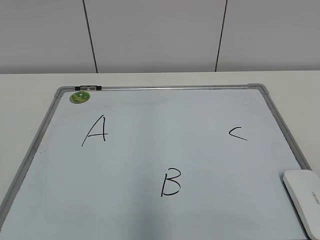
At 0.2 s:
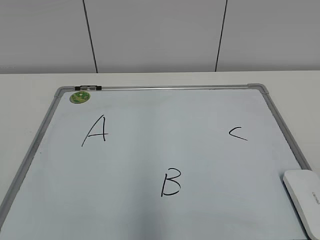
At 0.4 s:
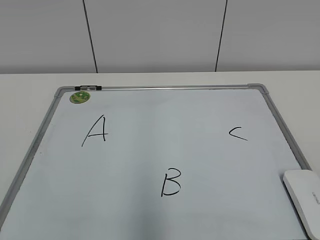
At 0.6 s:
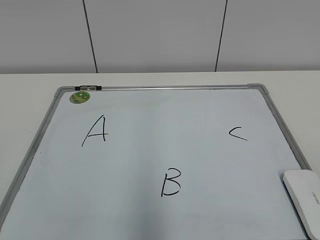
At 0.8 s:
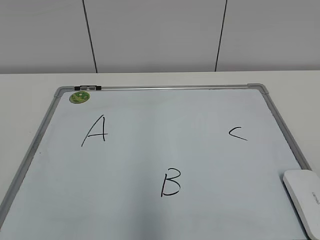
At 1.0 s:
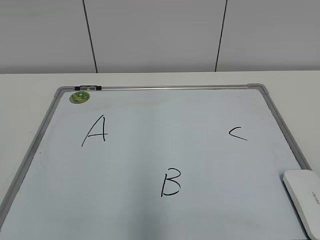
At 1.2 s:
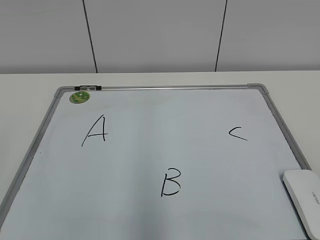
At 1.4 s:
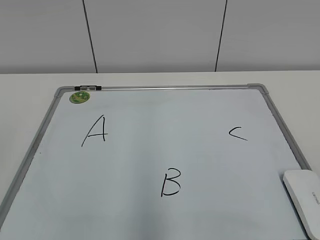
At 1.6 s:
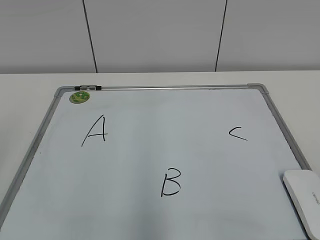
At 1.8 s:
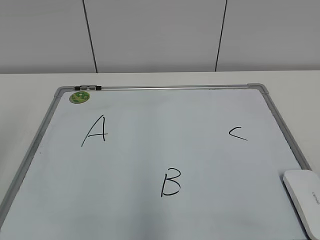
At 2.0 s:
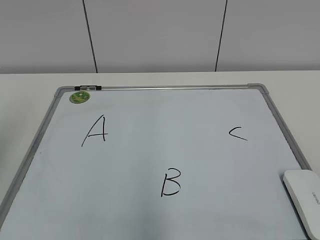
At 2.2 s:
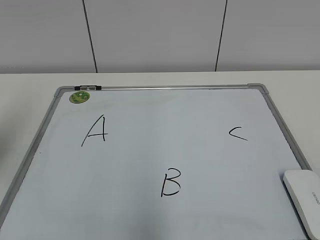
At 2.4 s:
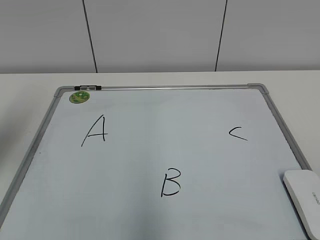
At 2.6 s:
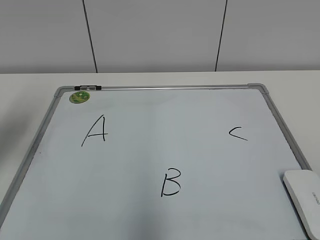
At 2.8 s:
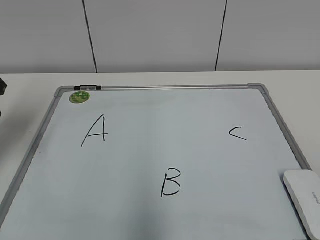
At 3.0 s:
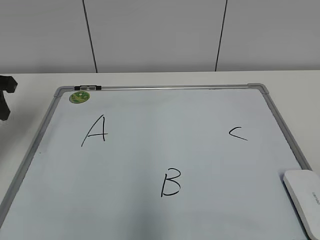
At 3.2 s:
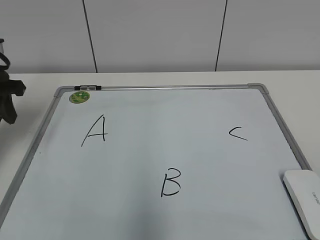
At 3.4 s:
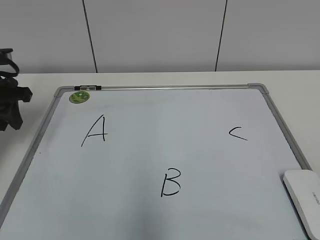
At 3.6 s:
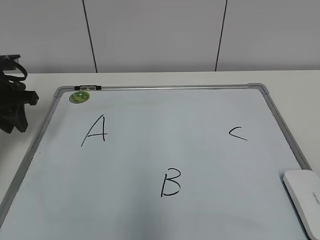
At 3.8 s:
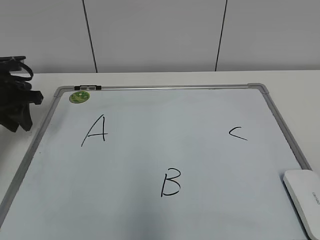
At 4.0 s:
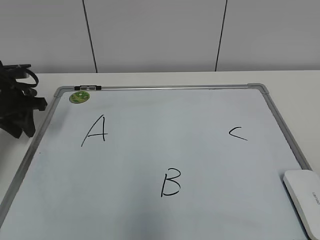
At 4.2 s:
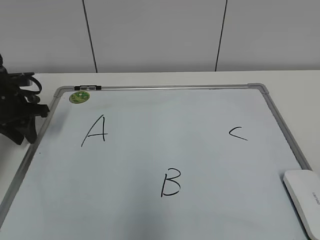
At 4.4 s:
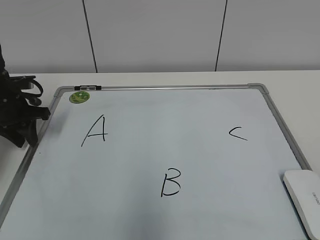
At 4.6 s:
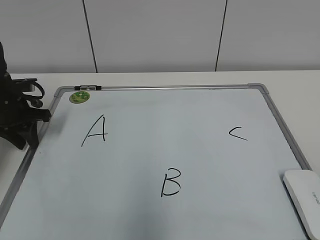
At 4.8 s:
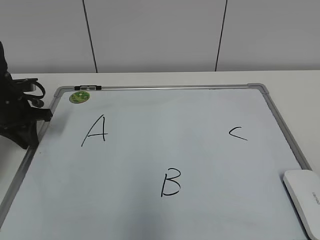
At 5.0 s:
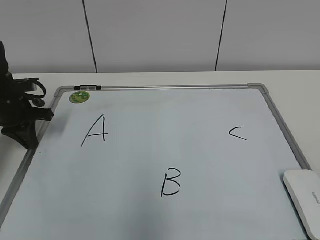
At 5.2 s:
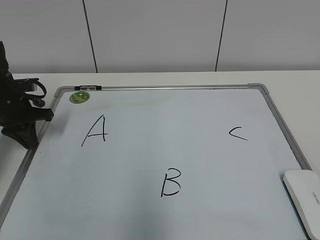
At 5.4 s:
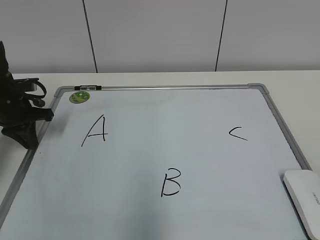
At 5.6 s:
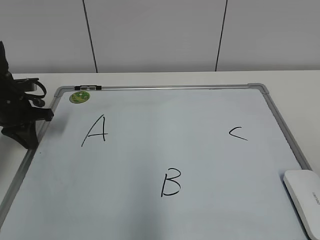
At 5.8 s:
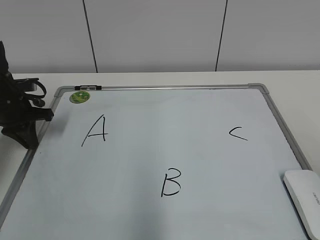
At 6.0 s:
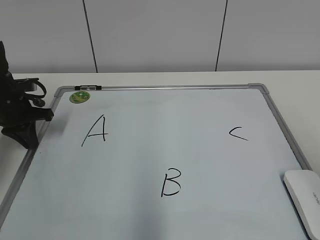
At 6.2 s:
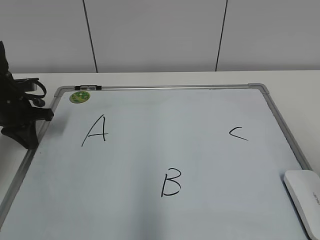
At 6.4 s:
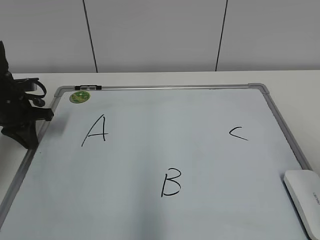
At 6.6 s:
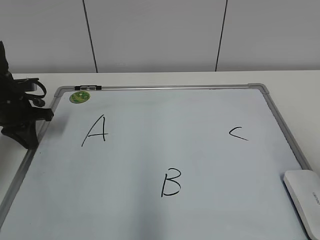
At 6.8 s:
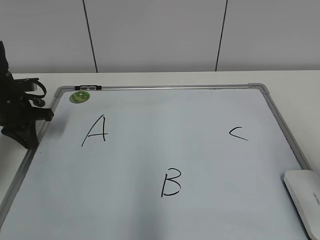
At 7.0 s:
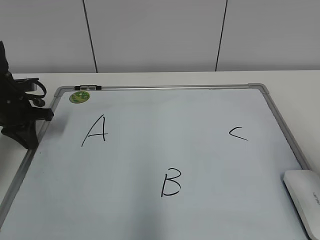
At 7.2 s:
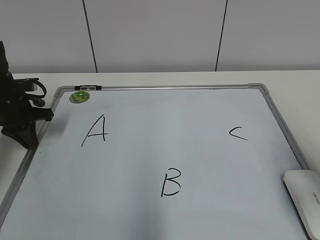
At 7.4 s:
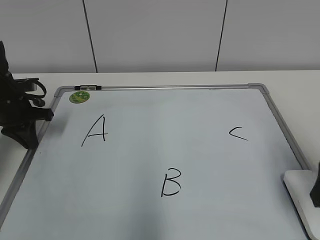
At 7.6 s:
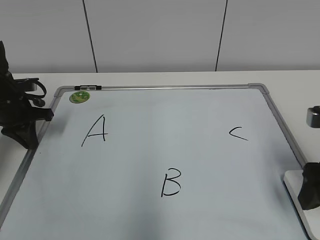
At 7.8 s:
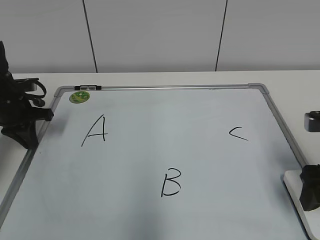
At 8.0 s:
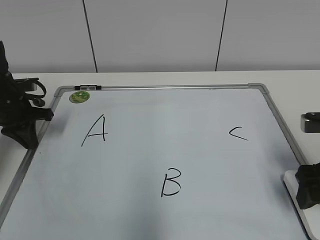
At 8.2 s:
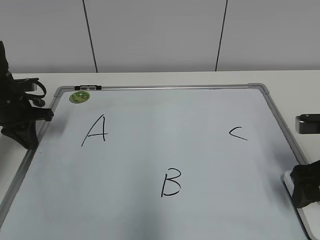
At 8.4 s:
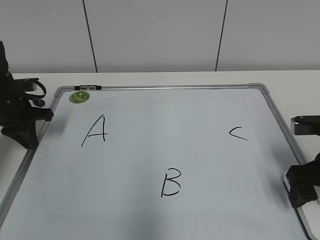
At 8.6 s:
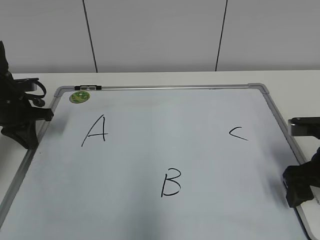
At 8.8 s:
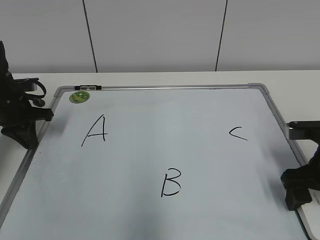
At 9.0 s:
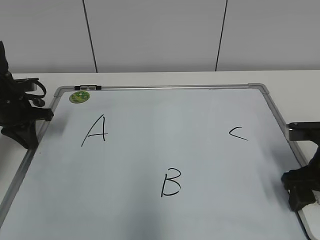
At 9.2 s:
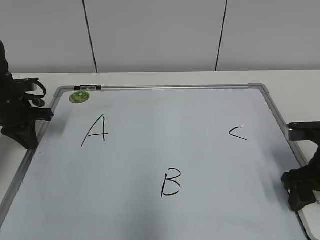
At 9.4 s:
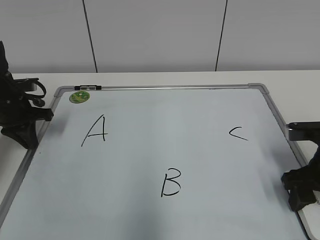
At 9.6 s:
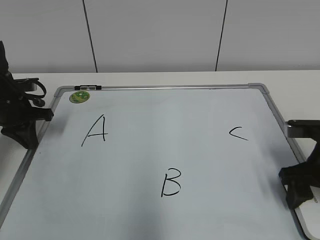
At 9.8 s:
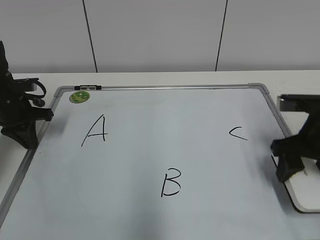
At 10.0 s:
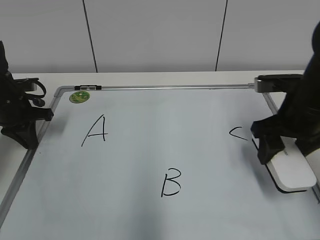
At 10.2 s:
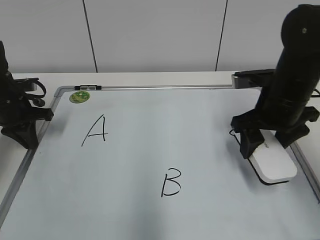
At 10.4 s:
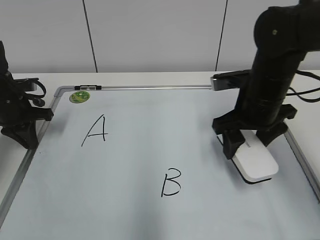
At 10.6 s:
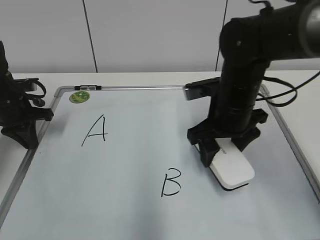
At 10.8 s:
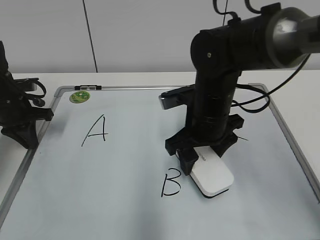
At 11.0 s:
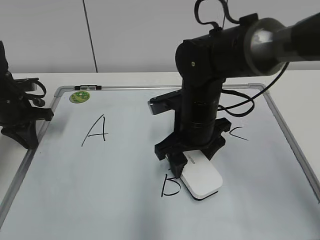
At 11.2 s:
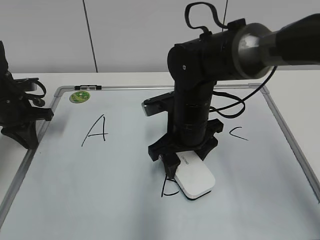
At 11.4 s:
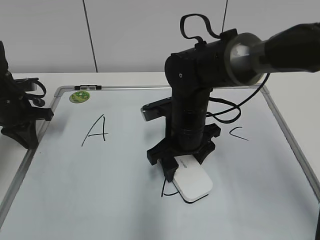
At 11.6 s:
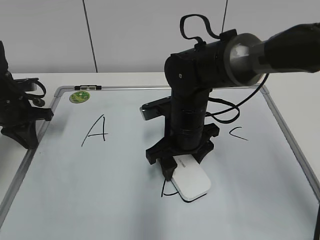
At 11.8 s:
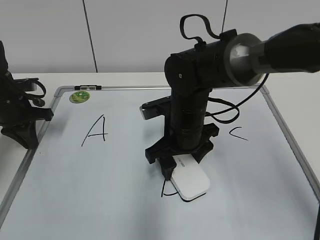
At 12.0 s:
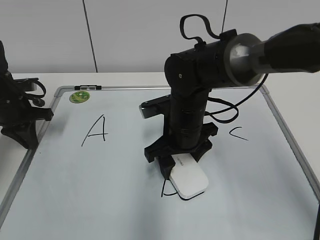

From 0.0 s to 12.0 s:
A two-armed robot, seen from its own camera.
Task of the whole recording: pick up the eraser on the blackboard and erase the letter "B".
Step, from 0.0 s to 5.6 s: Hold the drawing board steady with your left hand.
Step, from 6.0 s to 9.2 s: Grab the eraser with your right hand.
From 1.6 s to 3.0 s: The left gripper heads forward, covering about 25 cm.
From 3.0 s to 4.4 s: The left gripper goes roughly 15 cm downward and forward.
From 4.4 s to 6.0 s: The left gripper closes its fingers.
From 6.0 s to 7.6 s: The right gripper heads forward and downward, covering approximately 15 cm, and opens its fingers.
From 7.6 s to 9.0 s: The right gripper goes about 5 cm downward, and closes.
From 9.0 s to 10.4 s: The right gripper goes approximately 15 cm to the left, forward and upward.
From 10.4 s to 12.0 s: The right gripper travels to the left and downward by approximately 15 cm.

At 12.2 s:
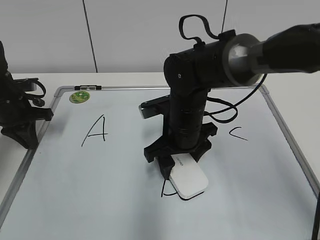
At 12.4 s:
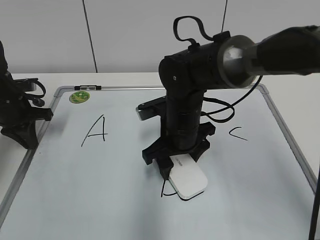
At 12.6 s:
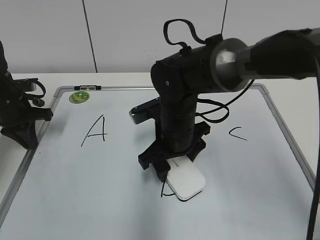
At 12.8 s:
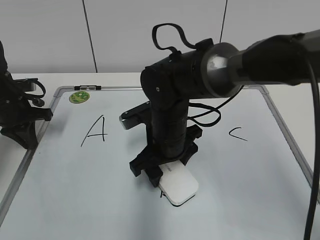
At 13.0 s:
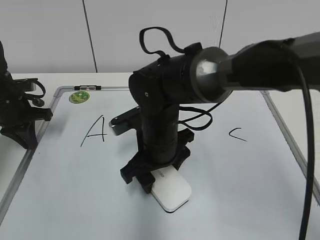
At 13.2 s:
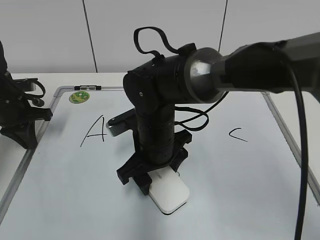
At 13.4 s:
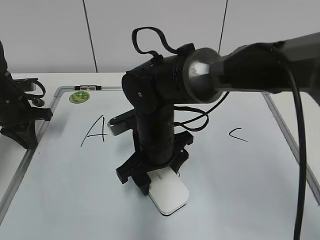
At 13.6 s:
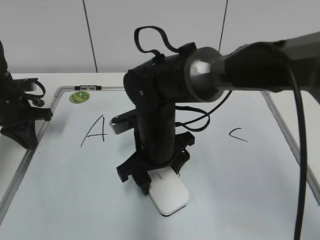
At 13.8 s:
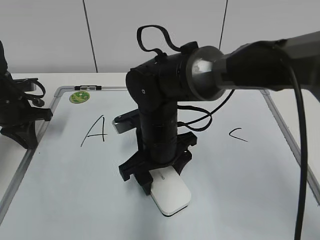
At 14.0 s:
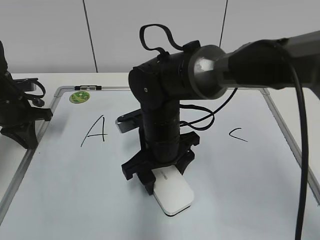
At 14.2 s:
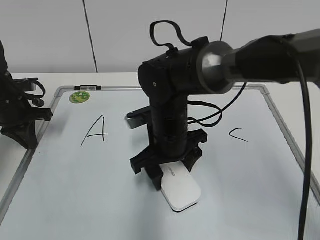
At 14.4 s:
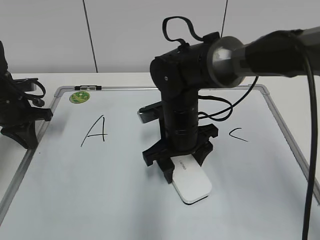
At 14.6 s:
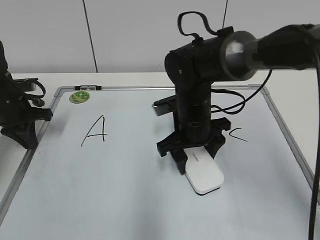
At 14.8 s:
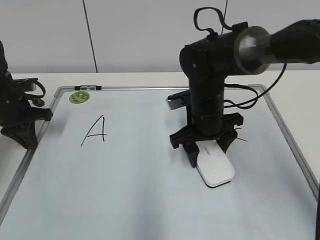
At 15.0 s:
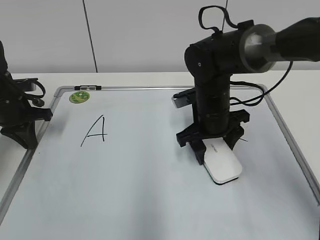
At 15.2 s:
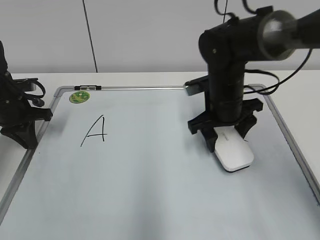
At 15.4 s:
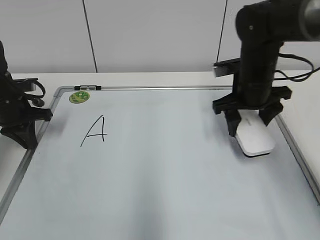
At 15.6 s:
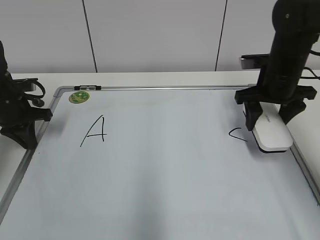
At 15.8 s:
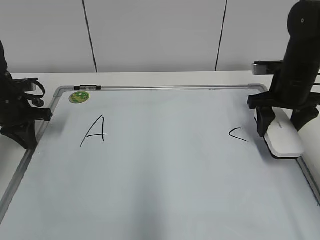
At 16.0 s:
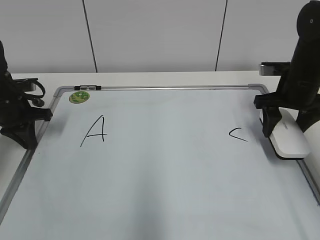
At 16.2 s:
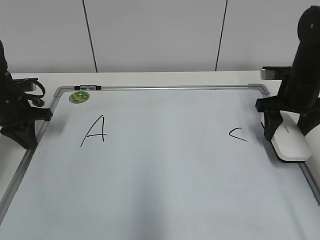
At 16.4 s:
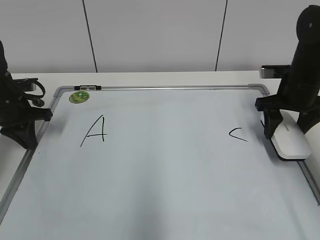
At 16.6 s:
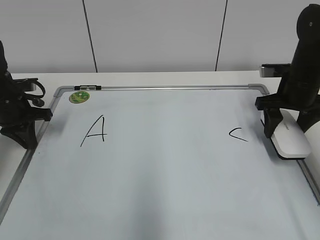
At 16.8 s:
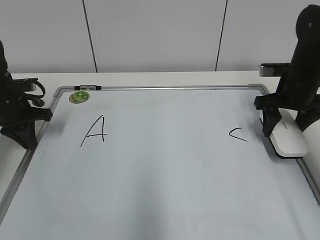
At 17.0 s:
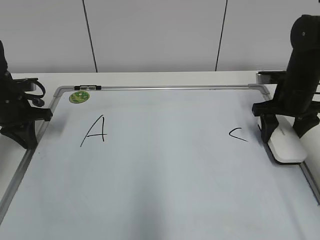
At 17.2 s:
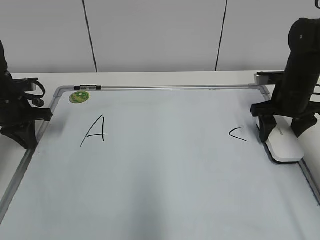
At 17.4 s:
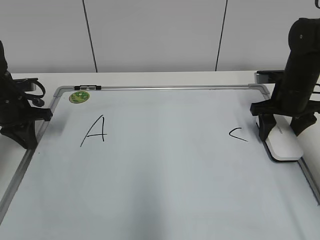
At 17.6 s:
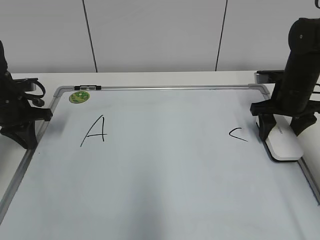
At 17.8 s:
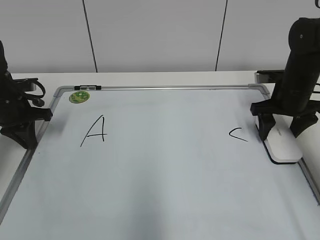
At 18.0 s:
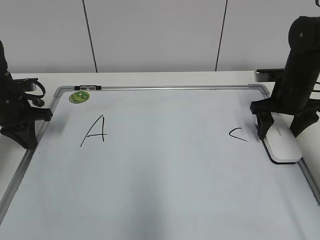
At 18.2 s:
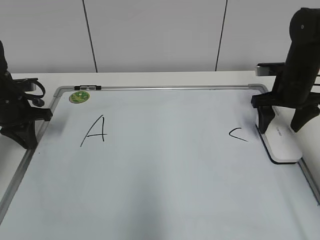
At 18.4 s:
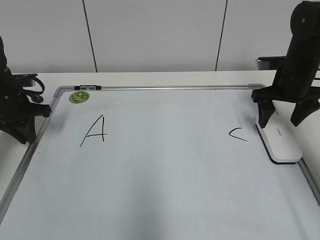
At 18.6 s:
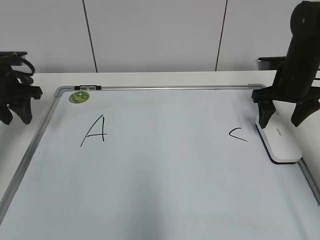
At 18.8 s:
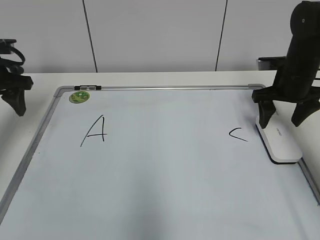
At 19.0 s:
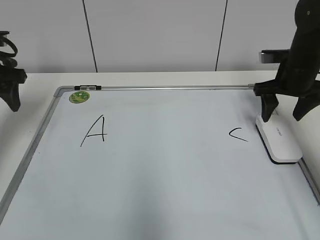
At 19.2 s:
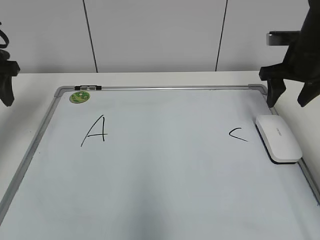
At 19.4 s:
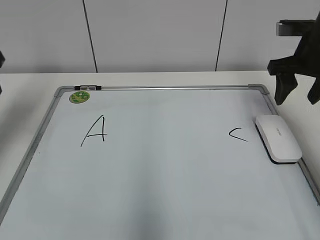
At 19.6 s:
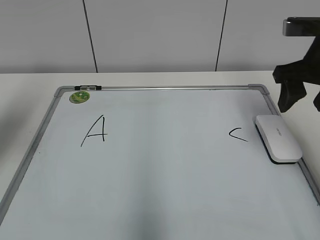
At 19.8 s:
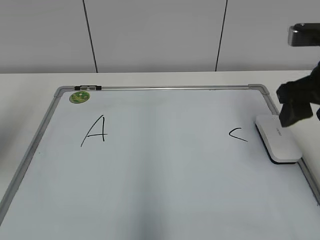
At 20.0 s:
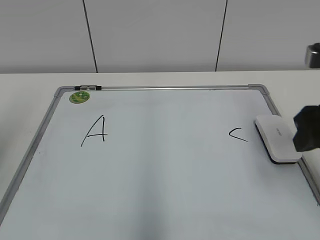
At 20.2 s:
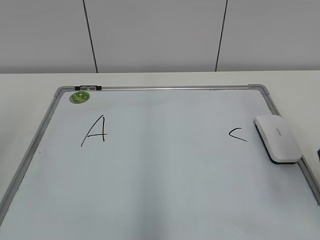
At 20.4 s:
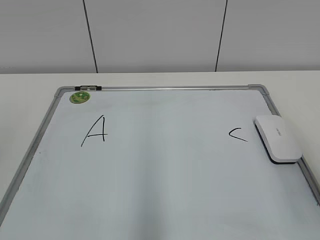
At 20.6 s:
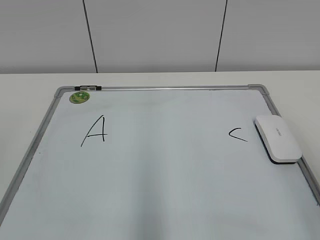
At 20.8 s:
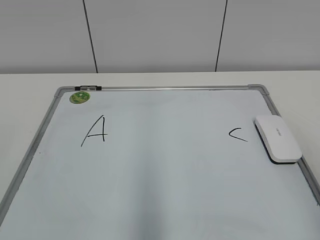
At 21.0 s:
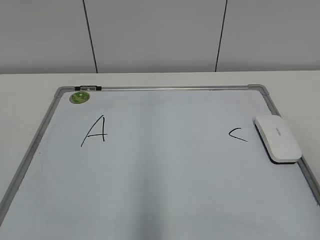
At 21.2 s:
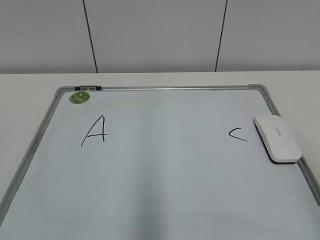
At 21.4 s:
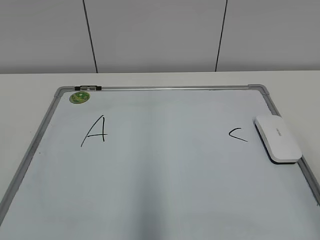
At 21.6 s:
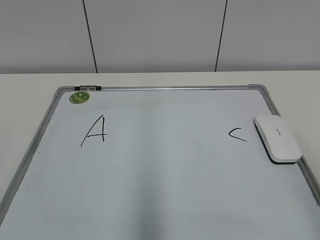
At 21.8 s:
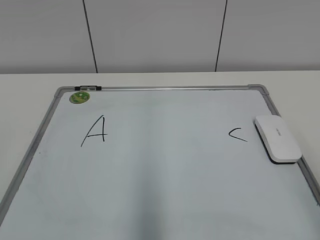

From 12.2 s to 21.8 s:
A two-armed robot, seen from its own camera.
Task of the whole recording: pick up the eraser on the blackboard and erase the letter "B".
Step, from 12.2 s to 14.6 s: Erase the letter B with your right hand.
Step, from 14.8 s to 17.6 s: Put down the eraser with your right hand.
From 13.8 s to 15.4 s: The right gripper is displaced to the right and forward by roughly 20 cm.
From 15.4 s to 17.0 s: The right gripper travels to the right by approximately 10 cm.
From 17.0 s to 18.6 s: The left gripper heads upward, covering roughly 5 cm, and opens its fingers. The right gripper opens its fingers.
From 18.6 s to 20.2 s: The left gripper is displaced backward and upward by approximately 30 cm; the right gripper travels backward by about 25 cm, and closes up.
From 20.2 s to 21.8 s: The right gripper goes some 15 cm backward.
